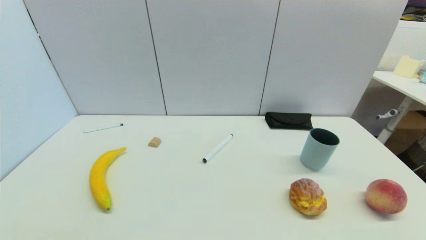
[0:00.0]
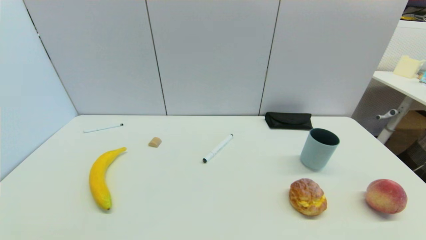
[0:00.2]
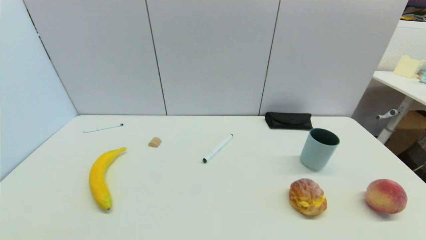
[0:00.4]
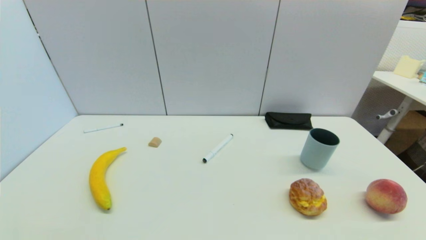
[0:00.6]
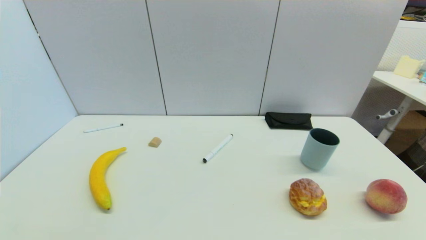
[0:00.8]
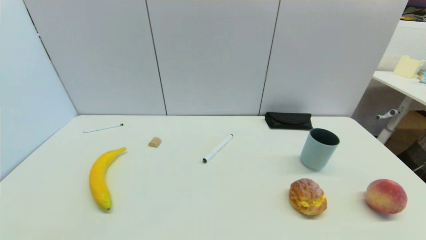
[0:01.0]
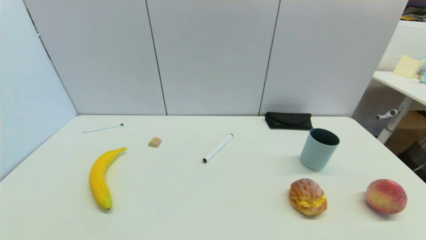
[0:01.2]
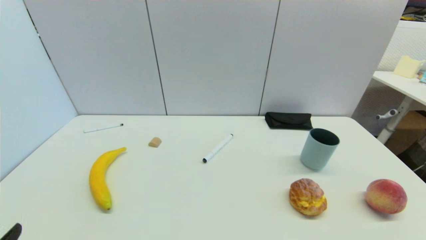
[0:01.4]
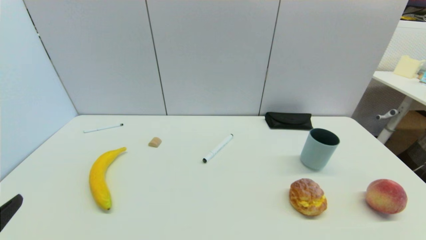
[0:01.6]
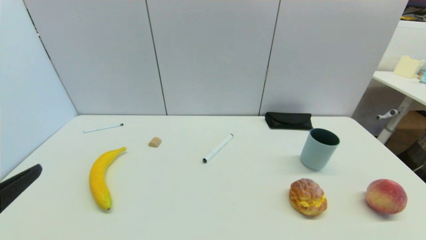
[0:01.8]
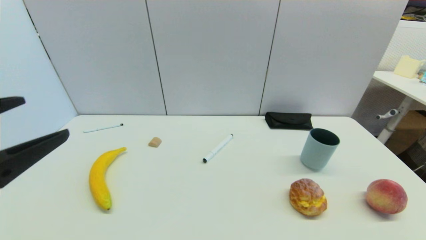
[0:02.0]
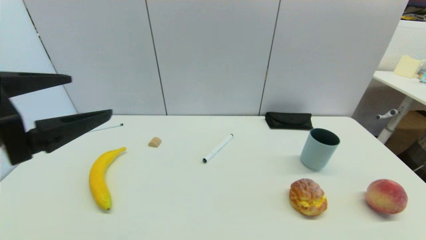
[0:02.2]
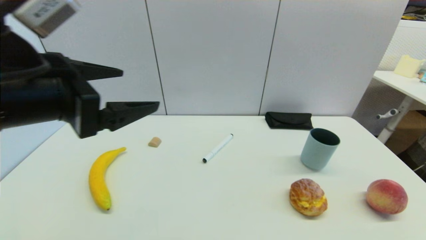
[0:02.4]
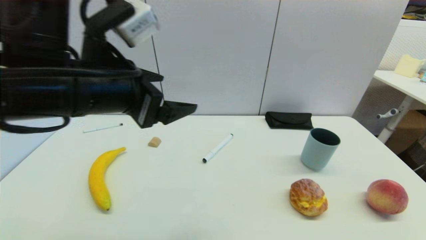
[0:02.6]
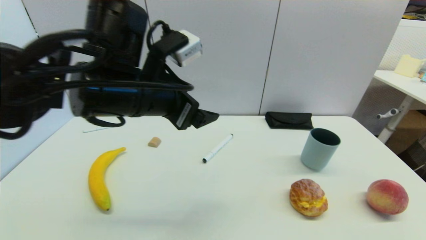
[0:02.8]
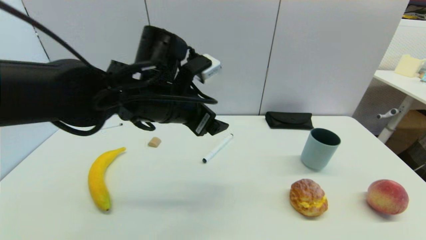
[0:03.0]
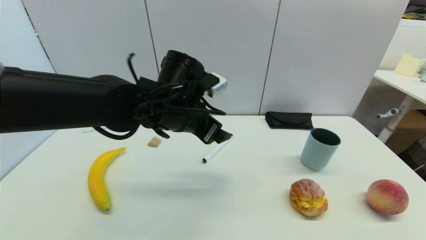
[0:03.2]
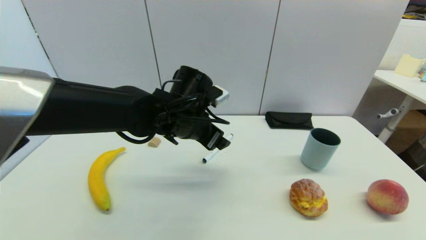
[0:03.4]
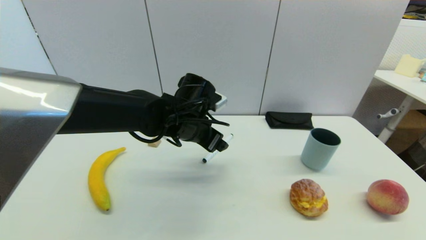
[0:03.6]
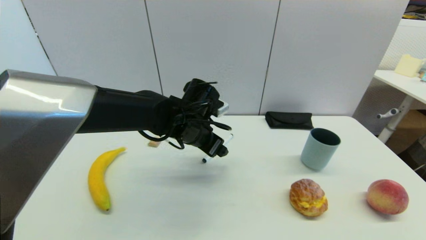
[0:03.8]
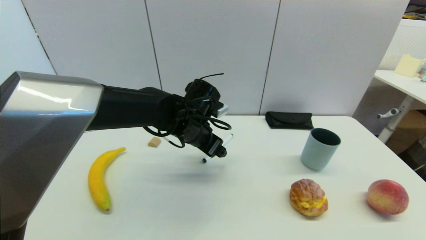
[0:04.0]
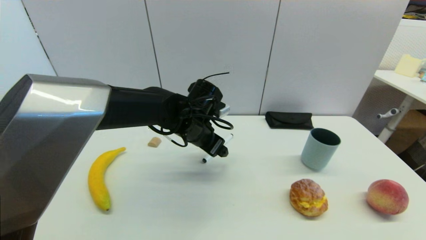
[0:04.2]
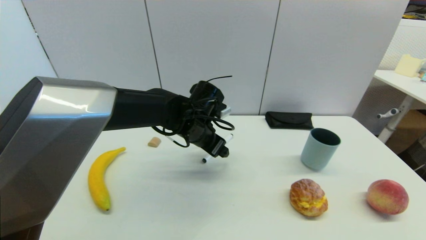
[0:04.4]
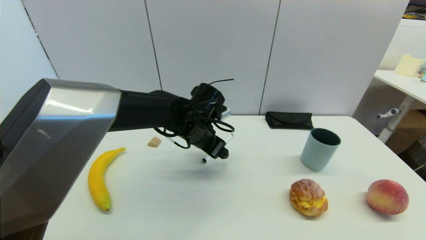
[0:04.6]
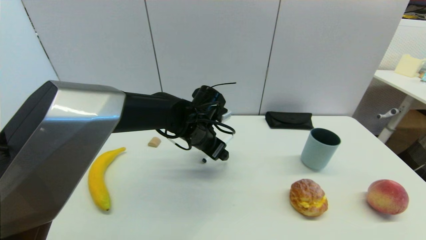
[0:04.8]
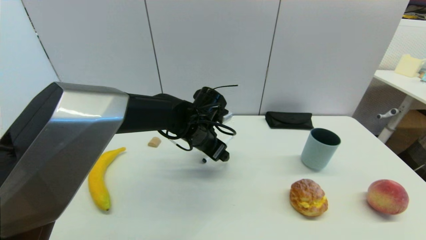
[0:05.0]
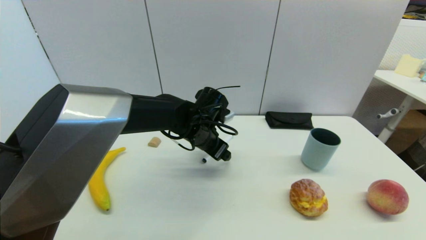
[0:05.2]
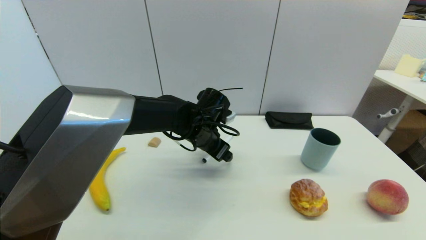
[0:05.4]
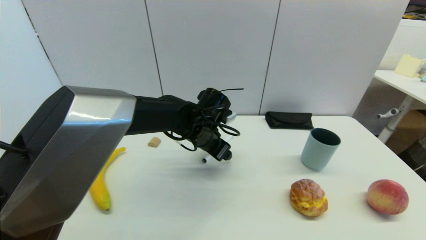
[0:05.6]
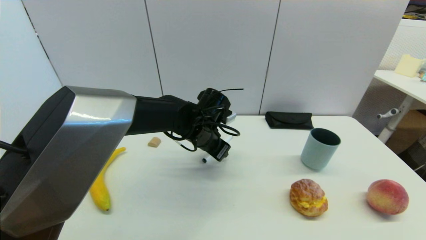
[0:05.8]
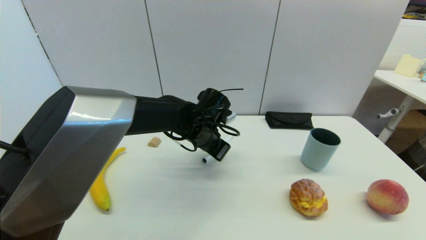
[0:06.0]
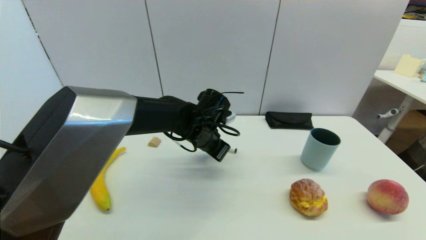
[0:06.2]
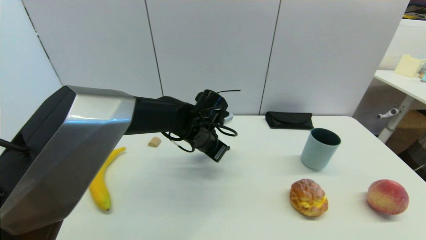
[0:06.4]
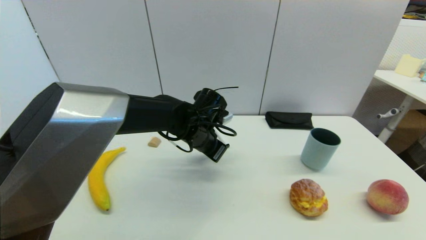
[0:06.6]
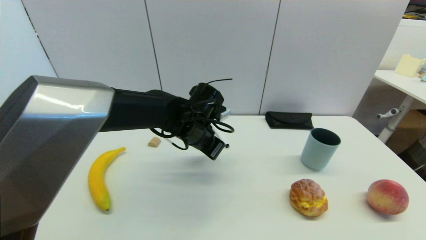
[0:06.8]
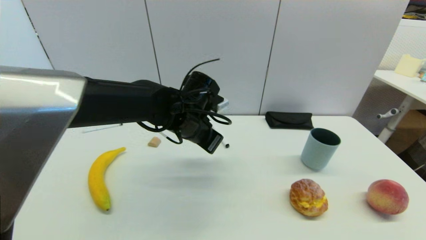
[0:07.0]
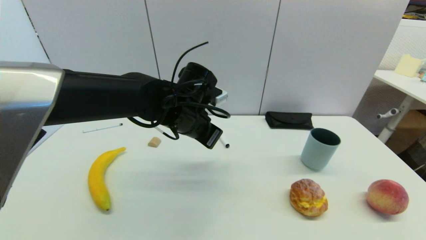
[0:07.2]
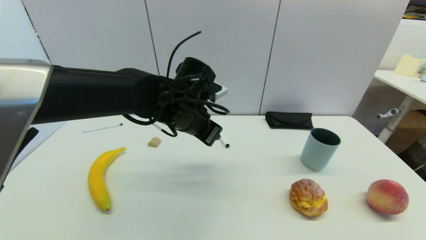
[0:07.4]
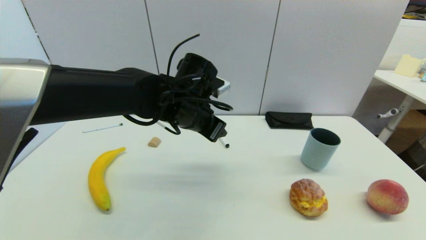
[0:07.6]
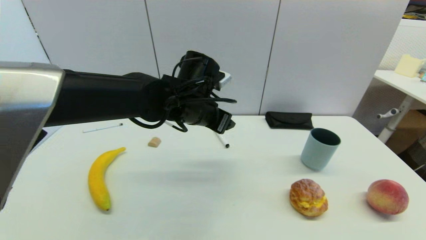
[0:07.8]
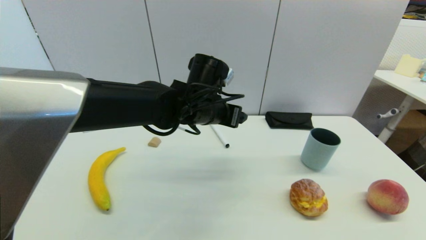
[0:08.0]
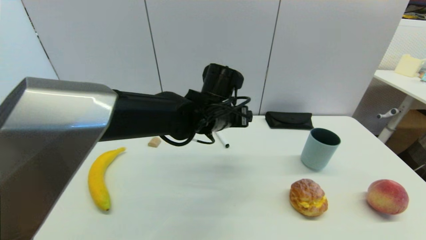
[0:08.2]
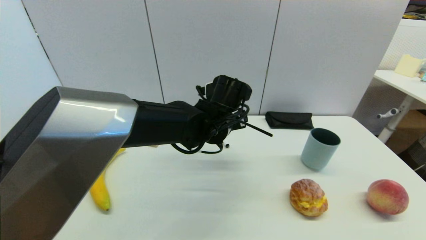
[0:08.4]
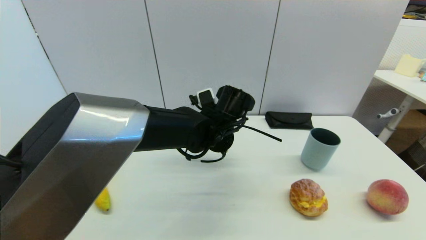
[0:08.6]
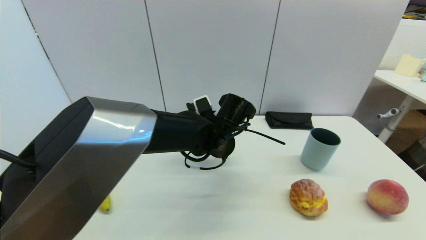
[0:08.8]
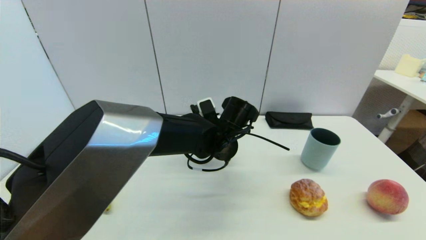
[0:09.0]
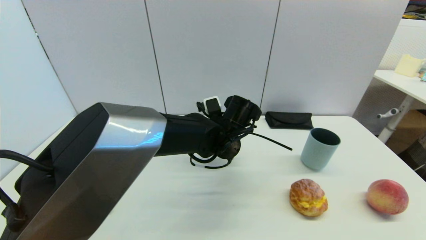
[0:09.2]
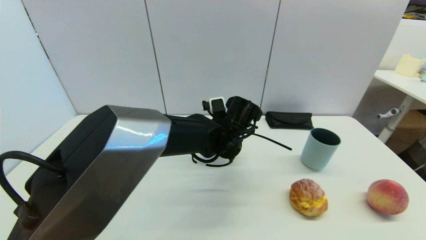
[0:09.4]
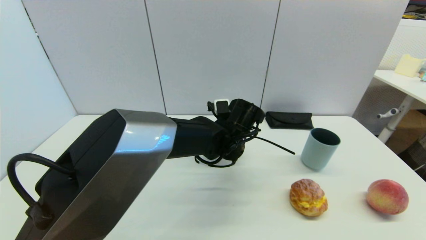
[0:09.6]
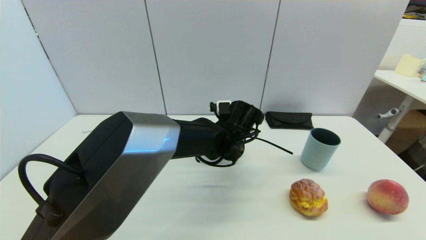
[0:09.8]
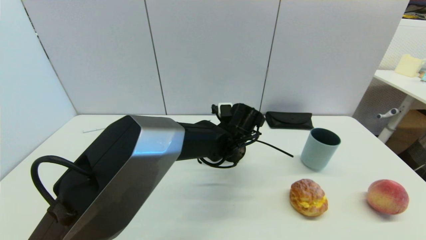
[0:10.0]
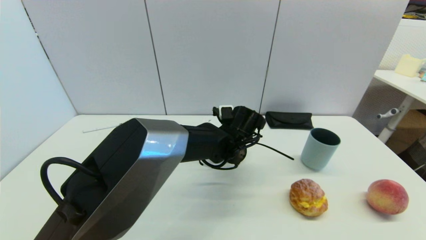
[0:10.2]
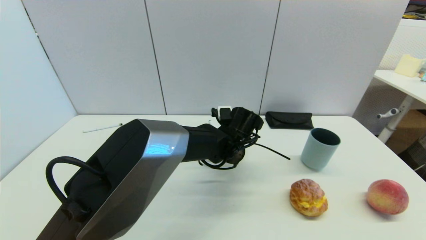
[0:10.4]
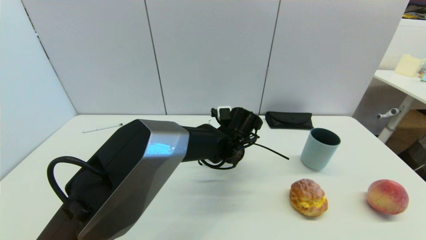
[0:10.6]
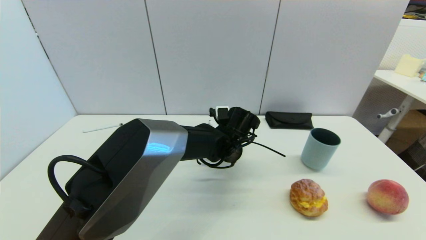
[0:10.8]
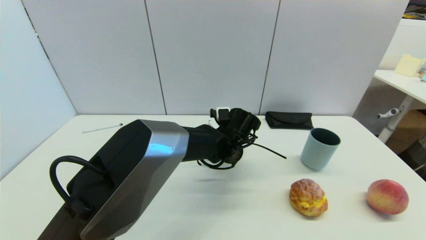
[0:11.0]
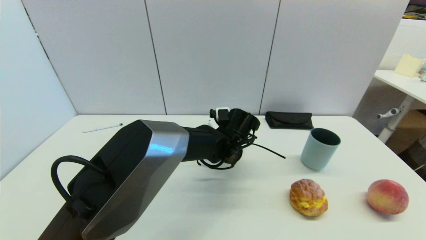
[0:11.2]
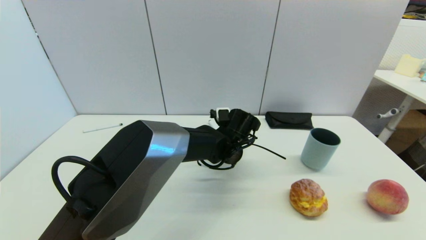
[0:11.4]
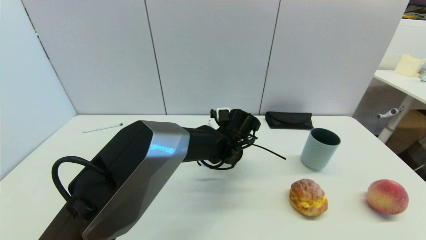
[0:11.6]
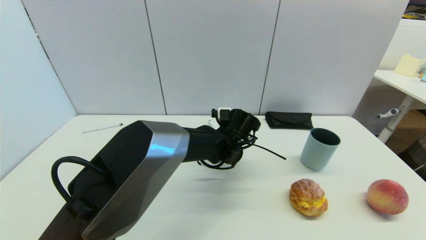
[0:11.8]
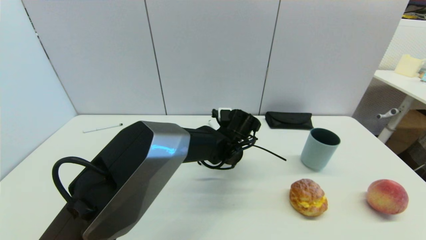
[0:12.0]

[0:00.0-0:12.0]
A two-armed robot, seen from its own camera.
Task of the whole recording: put the black marker in the designated position.
0:01.6 to 0:03.0: The left gripper heads forward and to the right, covering some 35 cm.
0:03.0 to 0:04.4: The left gripper moves downward and forward, approximately 10 cm.
0:04.4 to 0:06.0: The left gripper closes.
0:06.0 to 0:07.6: The left gripper shifts some 10 cm upward, and closes, then reopens.
0:07.6 to 0:09.0: The left gripper goes approximately 10 cm downward and to the right.
0:09.0 to 0:10.4: The left gripper moves roughly 5 cm.
0:10.4 to 0:12.0: The left gripper closes.

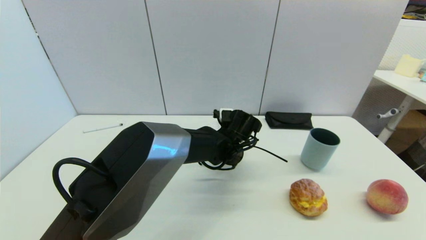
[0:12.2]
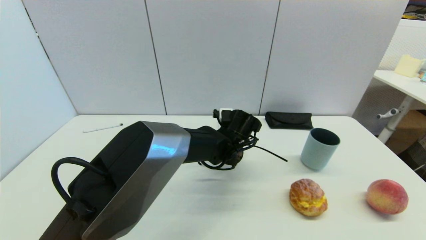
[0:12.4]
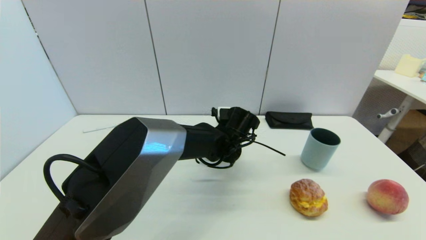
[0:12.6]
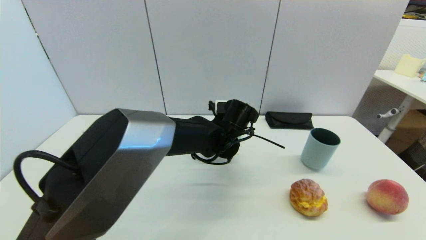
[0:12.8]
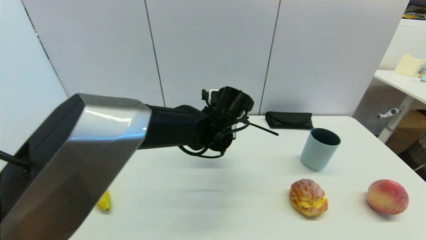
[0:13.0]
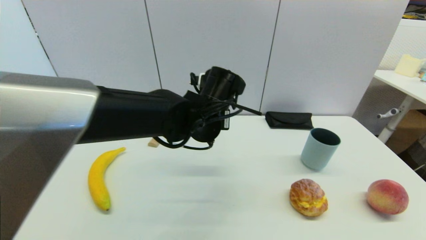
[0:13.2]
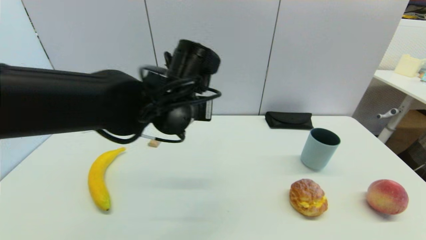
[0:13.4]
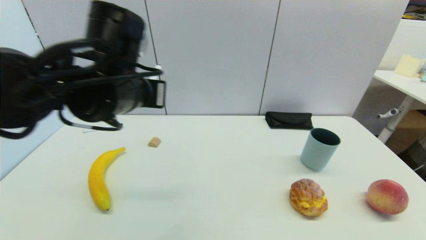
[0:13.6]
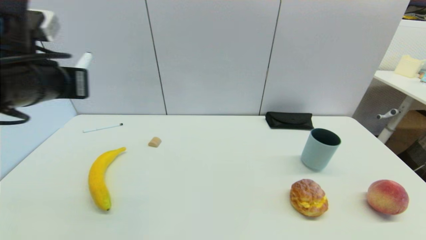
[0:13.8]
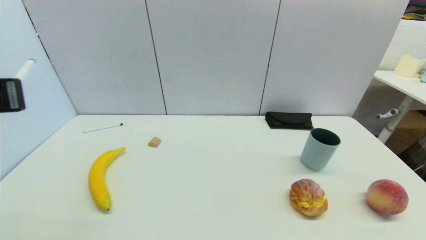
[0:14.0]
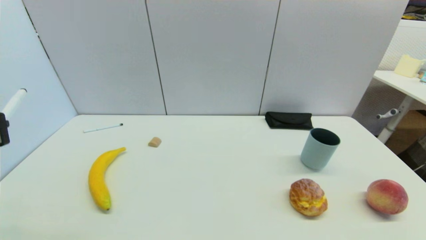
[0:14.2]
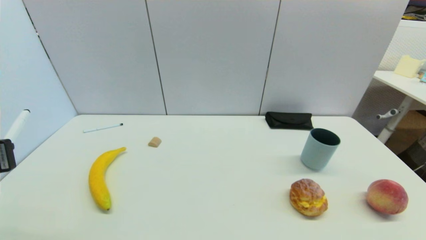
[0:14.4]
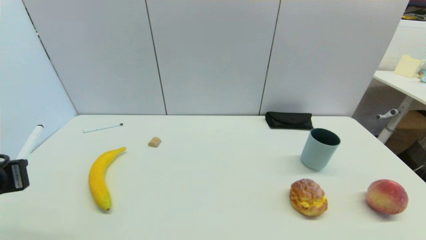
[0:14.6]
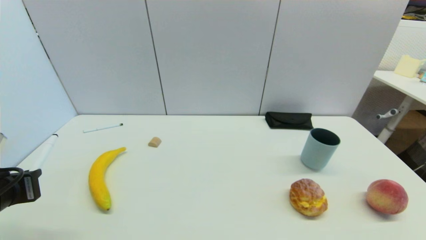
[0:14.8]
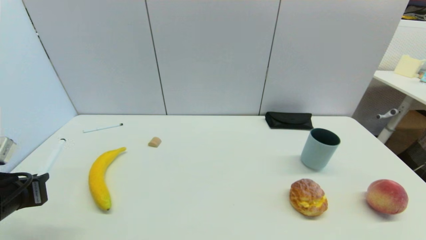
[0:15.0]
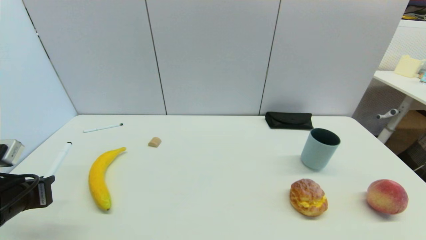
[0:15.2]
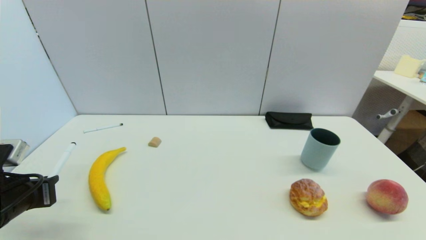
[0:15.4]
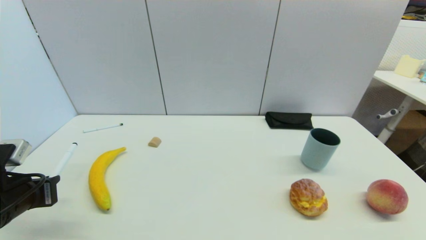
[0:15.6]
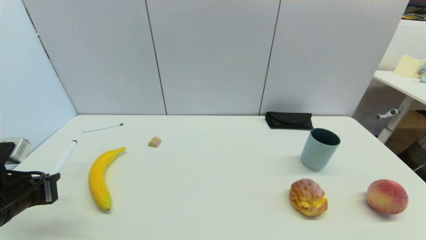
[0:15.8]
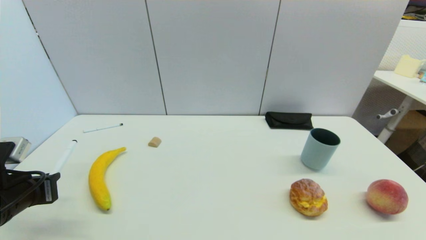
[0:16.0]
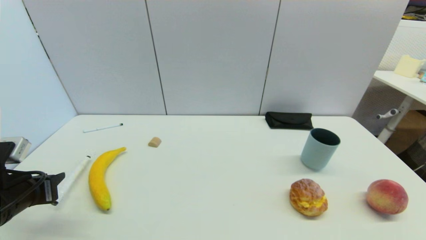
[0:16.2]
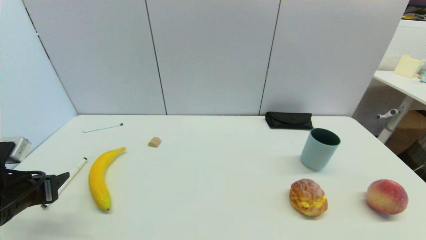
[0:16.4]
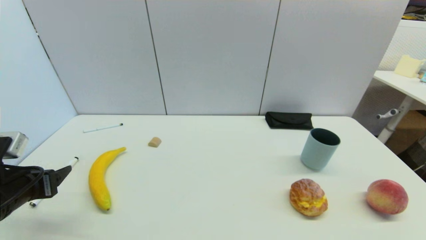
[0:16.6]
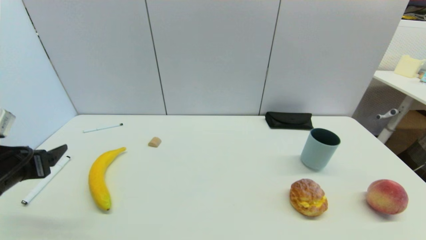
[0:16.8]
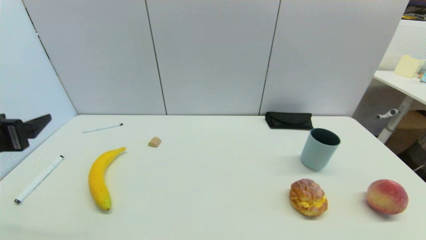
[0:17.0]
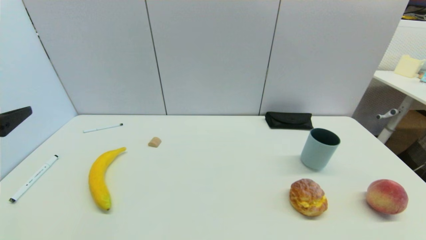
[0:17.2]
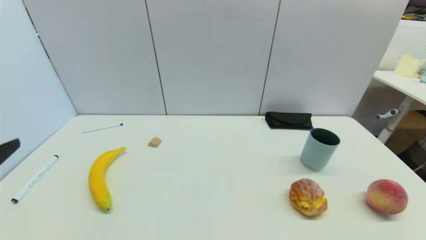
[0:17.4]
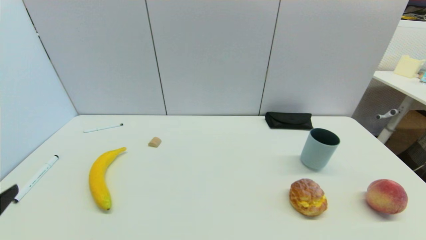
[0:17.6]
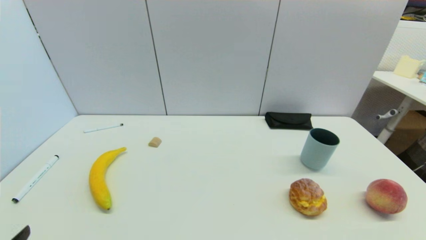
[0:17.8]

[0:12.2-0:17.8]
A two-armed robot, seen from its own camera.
Task of the whole recording: put the black marker in the designated position.
Step, 0:12.4 to 0:16.4: Place the Marker pen on the table with left gripper.
0:12.2 to 0:13.6: The left gripper shifts roughly 30 cm upward, to the left and backward.
0:13.6 to 0:15.0: The left gripper goes roughly 25 cm to the left, downward and backward.
0:15.0 to 0:16.4: The left gripper opens its fingers.
0:16.4 to 0:17.8: The left gripper moves backward, some 15 cm, and opens up.
